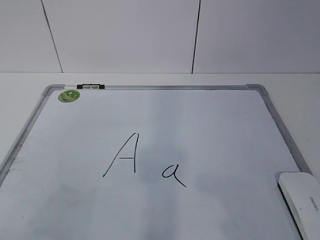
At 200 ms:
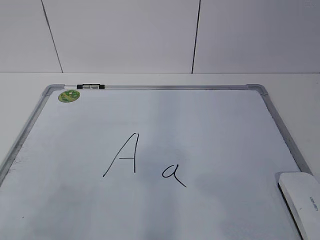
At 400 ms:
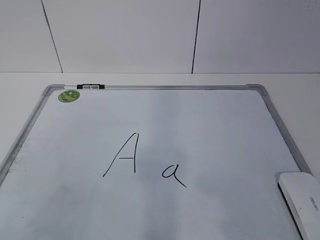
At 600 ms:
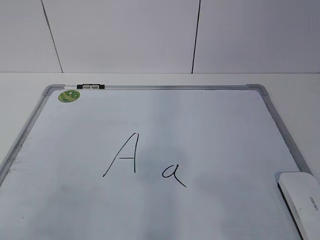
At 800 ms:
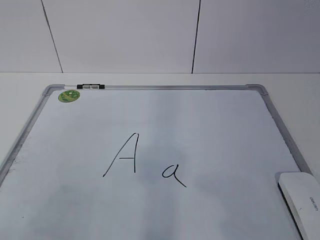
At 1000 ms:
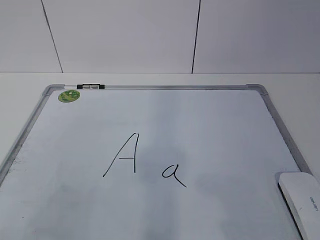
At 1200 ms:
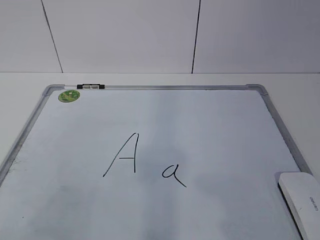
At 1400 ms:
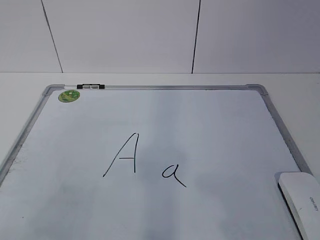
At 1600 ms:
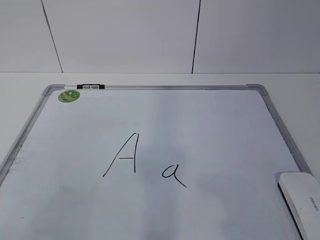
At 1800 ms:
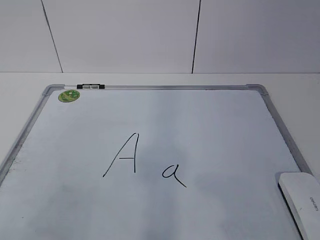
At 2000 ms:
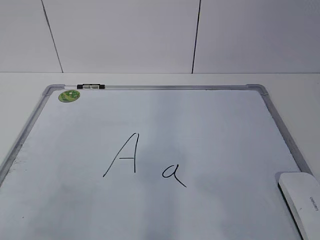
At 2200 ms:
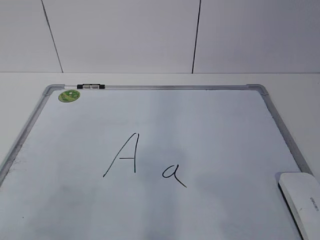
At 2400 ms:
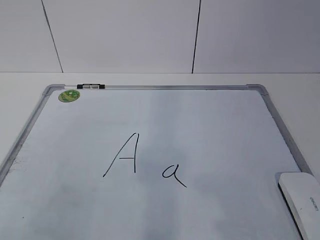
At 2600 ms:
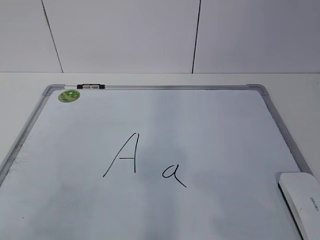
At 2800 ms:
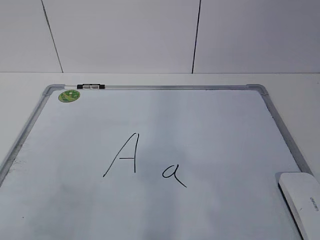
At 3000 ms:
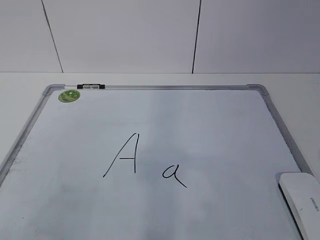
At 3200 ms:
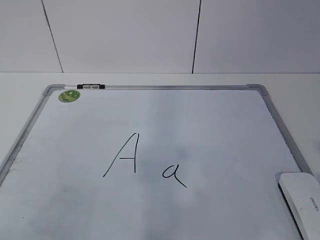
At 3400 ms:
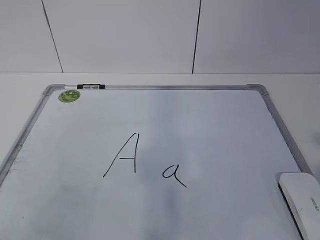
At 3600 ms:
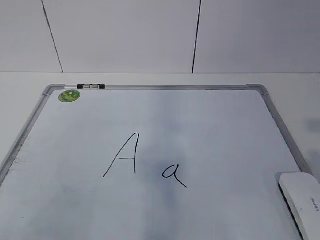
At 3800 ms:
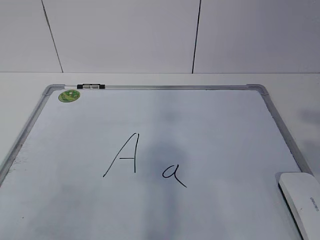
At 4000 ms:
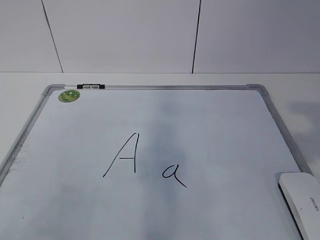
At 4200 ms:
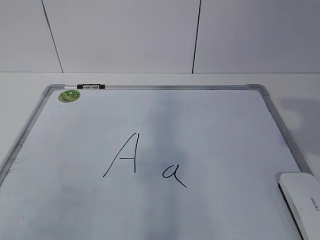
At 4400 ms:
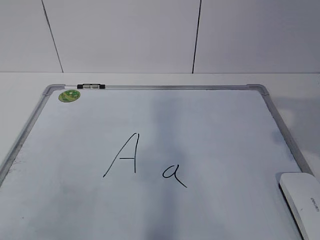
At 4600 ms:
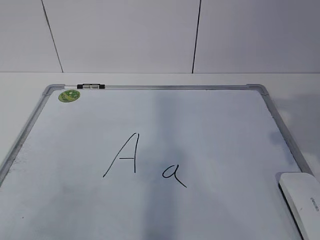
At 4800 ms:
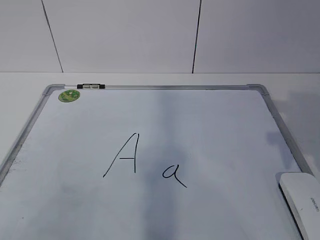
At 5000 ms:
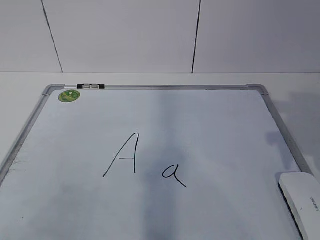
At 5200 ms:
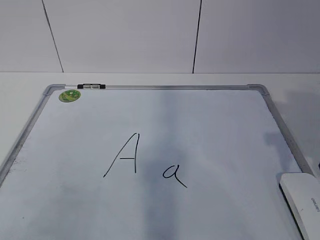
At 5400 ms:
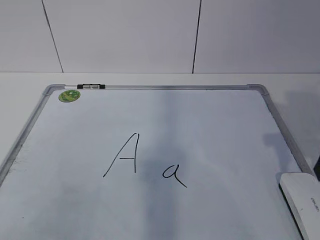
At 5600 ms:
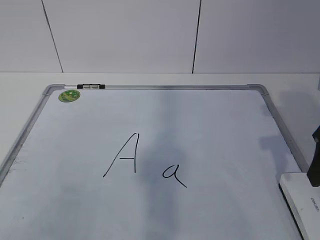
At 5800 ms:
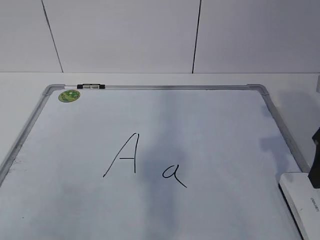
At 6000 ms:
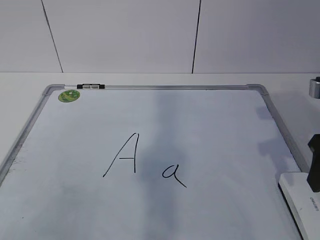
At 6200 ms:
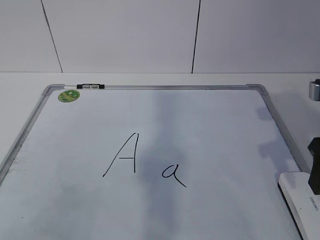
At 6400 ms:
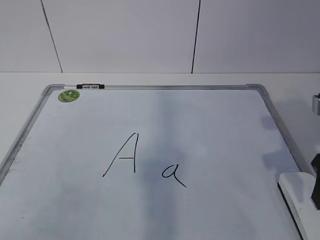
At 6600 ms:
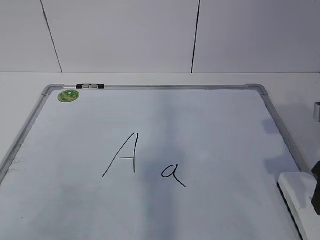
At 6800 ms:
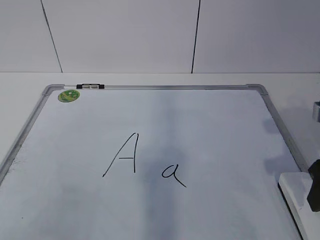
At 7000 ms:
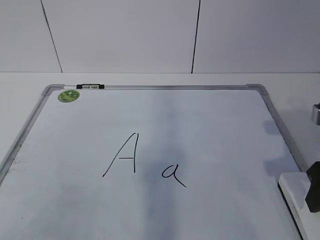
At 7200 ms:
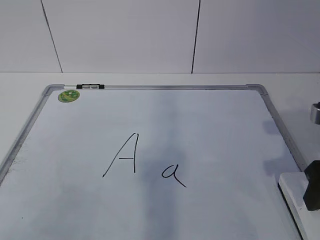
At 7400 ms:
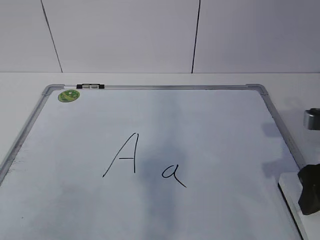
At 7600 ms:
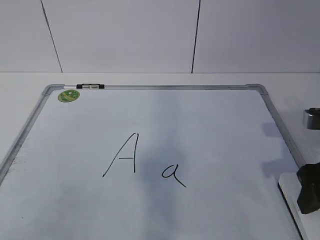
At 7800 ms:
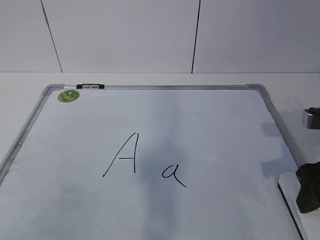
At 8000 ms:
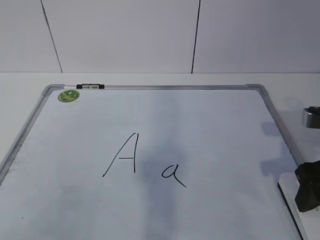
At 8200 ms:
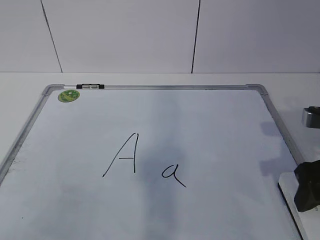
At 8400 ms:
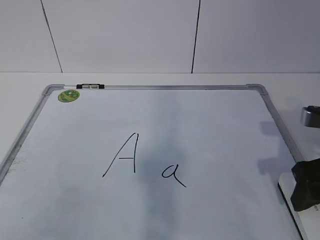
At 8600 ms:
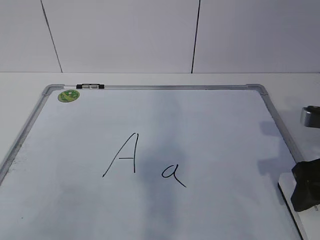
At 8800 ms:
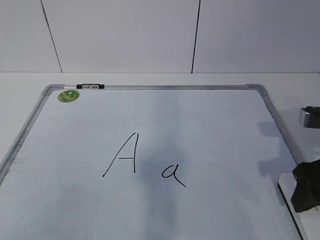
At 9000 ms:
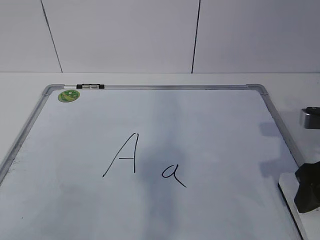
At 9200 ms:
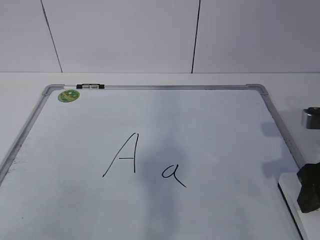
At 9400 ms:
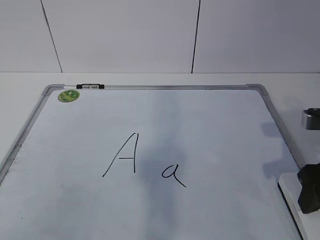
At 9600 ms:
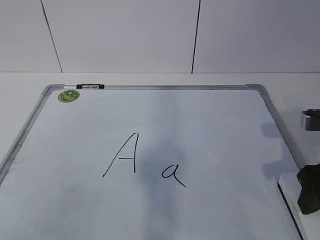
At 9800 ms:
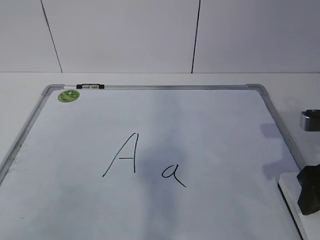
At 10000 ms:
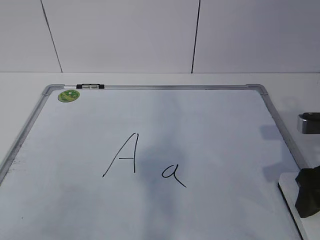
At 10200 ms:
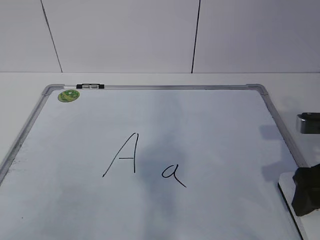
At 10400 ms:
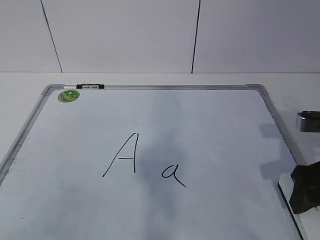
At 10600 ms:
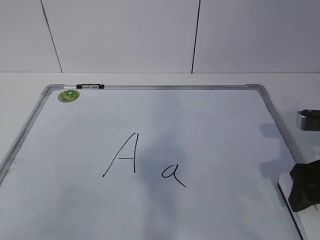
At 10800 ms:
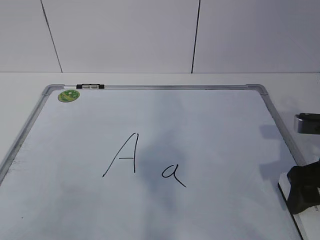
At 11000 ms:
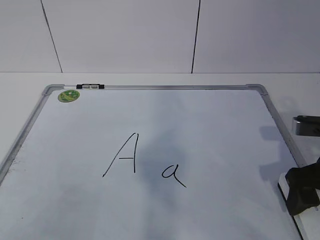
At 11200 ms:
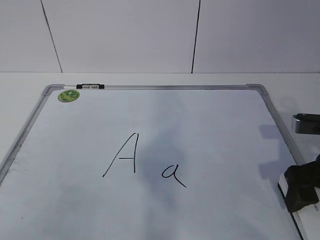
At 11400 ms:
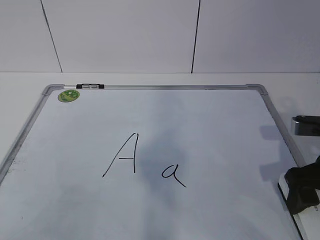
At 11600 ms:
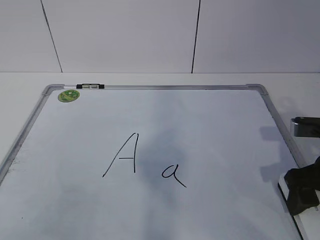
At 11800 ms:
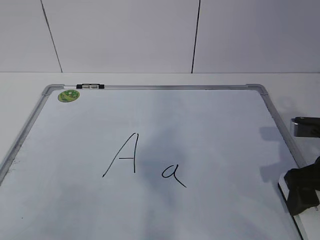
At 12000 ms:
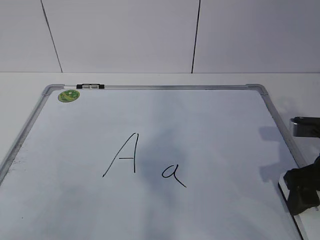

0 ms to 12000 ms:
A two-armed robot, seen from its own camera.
Task of the whole recording: pick up the eraser on the blackboard and erase the letter "a".
Step, 0 ms to 11200 ms: Grab the eraser with your right hand.
4400 ms to 6000 ms: The right gripper shifts roughly 10 cm downward and forward.
6000 ms to 7600 ms: The right gripper moves some 5 cm.
7600 ms to 9000 ms: Neither gripper changes place.
9000 ms to 10400 ms: The right gripper opens its fingers.
10400 ms to 12000 ms: The right gripper closes up.

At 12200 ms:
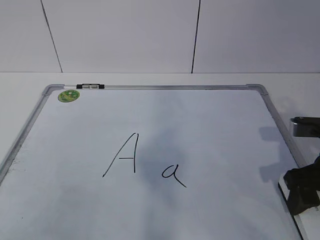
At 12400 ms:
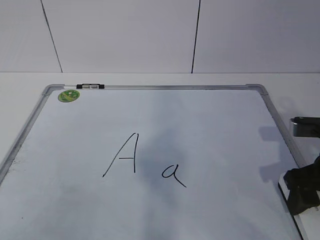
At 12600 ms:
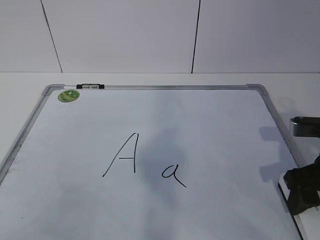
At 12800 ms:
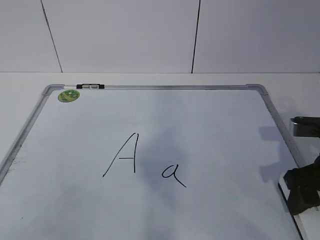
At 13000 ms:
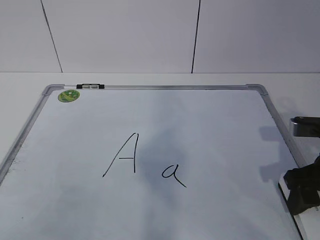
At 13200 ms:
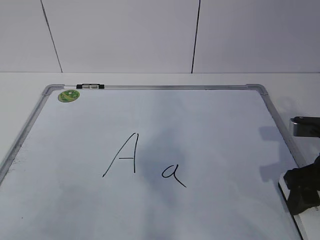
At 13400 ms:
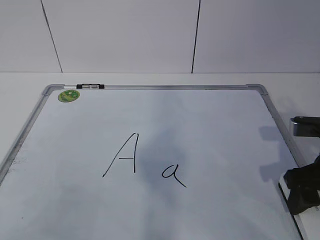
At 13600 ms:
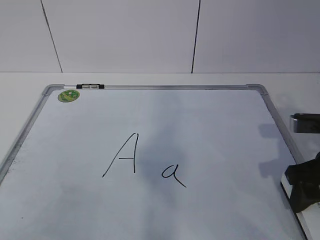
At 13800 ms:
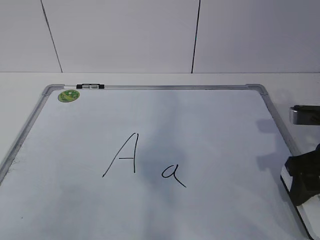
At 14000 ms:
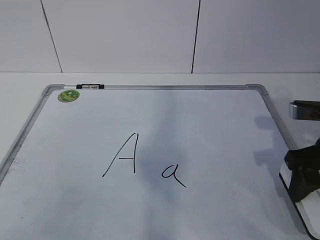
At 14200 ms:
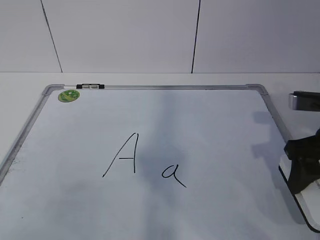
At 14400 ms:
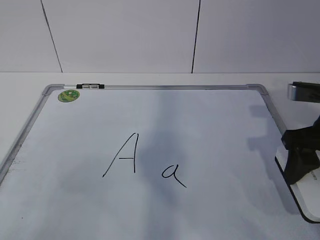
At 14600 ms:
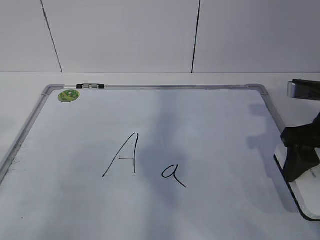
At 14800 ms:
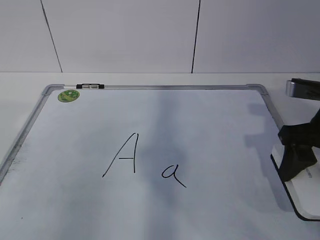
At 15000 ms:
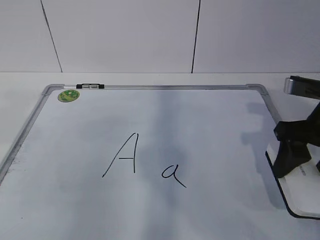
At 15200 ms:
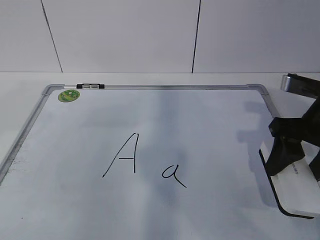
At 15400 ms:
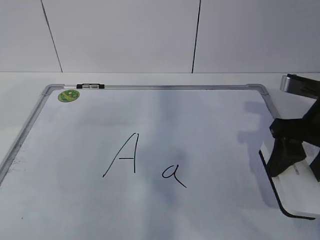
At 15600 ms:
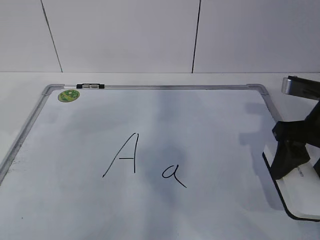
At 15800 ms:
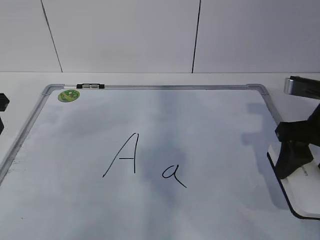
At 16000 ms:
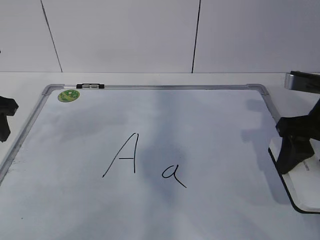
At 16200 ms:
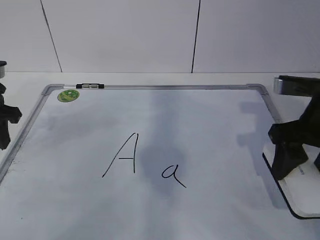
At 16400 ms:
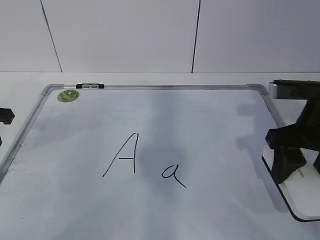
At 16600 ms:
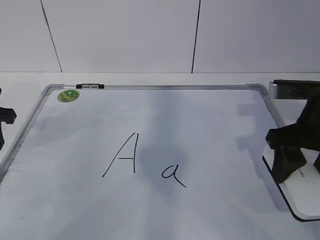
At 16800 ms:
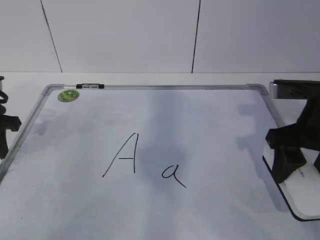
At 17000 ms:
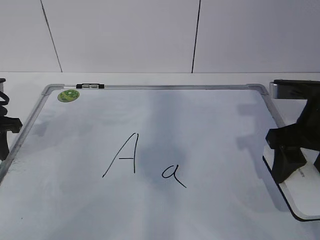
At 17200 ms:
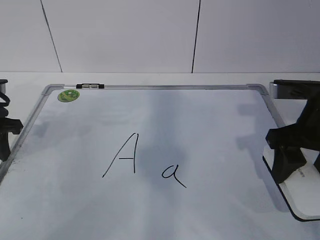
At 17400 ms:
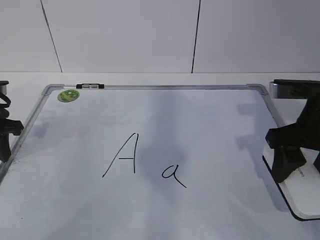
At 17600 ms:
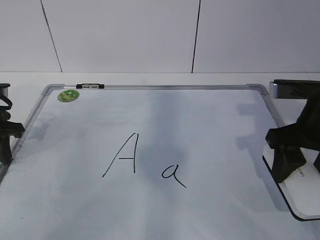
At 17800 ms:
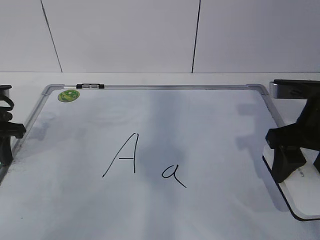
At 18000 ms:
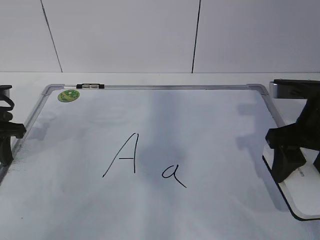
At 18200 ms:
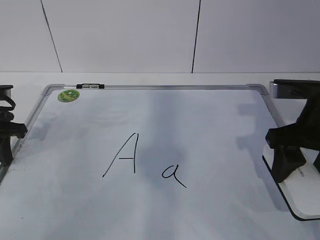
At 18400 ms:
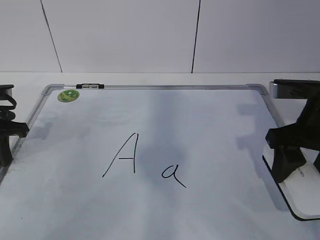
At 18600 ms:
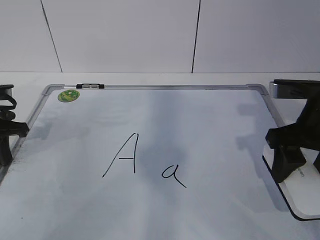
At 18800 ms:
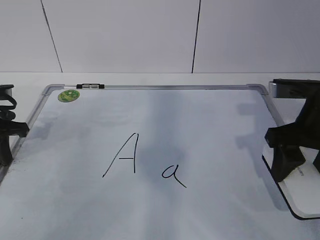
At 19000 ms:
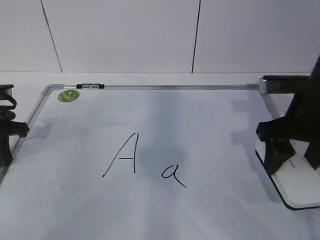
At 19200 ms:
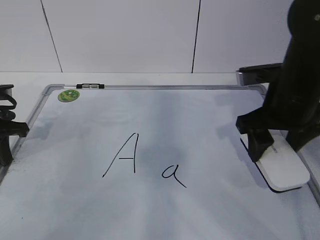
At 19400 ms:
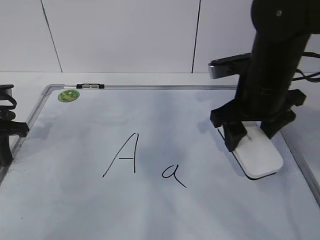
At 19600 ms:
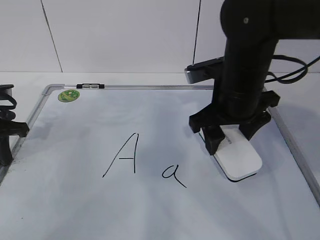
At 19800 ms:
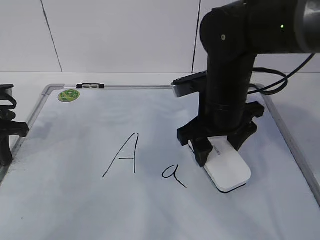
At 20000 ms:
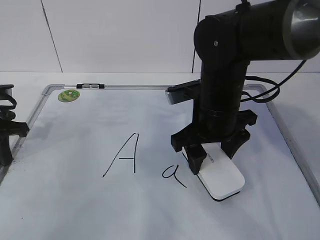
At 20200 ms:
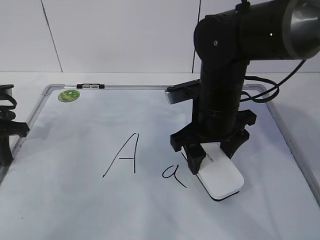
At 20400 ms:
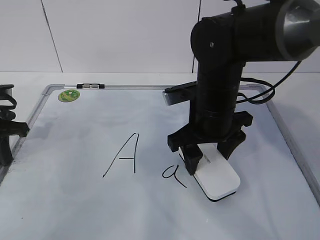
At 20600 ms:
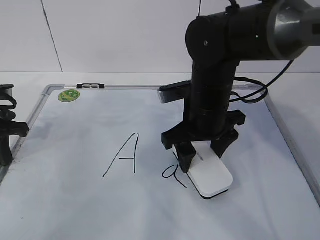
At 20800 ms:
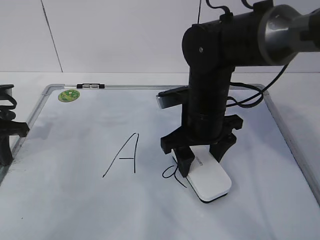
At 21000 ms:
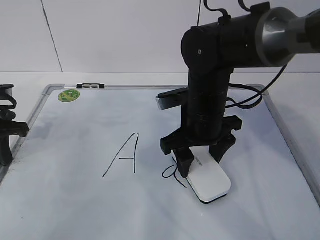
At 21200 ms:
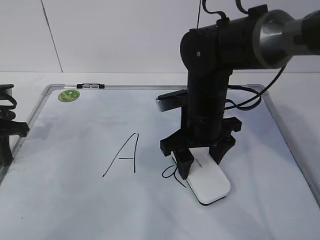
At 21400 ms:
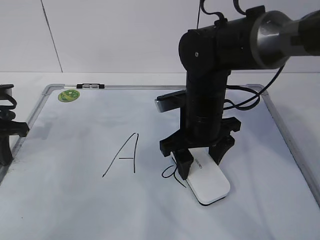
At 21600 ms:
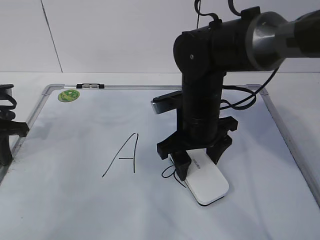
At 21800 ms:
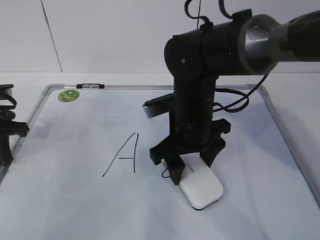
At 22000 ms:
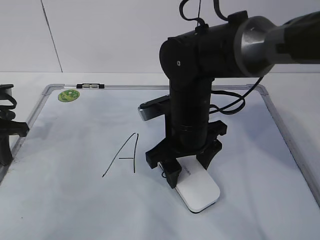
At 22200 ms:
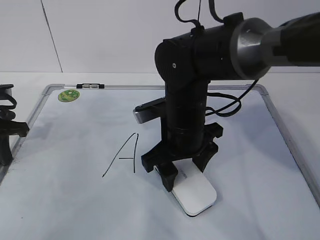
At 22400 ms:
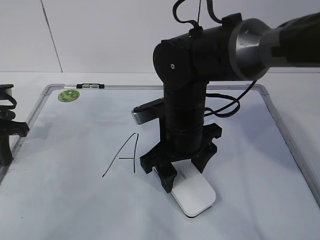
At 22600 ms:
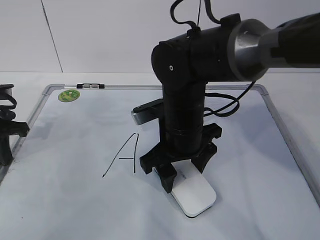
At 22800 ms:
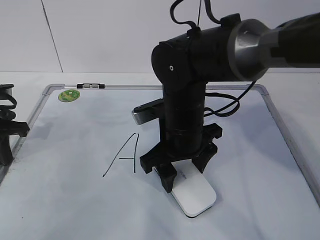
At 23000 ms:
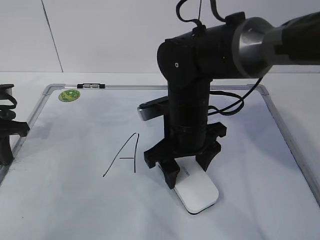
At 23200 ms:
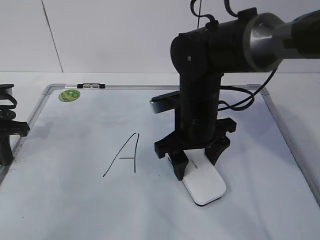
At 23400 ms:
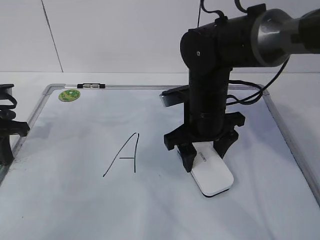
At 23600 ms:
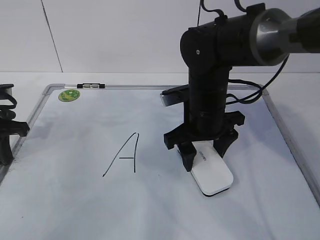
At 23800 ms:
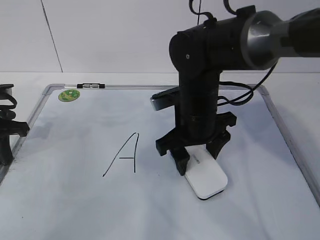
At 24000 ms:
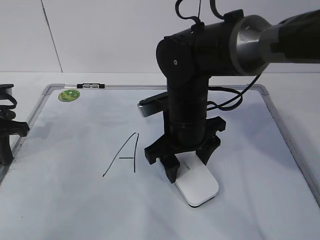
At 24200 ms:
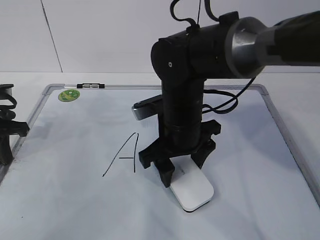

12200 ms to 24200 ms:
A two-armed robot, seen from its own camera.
Task of the whole recording: pick up the eraser on the blackboard and erase the letter "a".
Step, 12200 ms to 14600 ms: Hold the drawing board steady with your left hand.
Step, 14800 ms to 20600 ms: Erase the letter a with your right hand.
12200 ms to 13800 ms: The grippers stay close to where they were, moving slightly.
15200 ms to 16600 ms: The left gripper moves downward and forward, approximately 15 cm.
16600 ms to 18200 ms: The grippers stay close to where they were, moving slightly.
18200 ms to 19800 ms: The right gripper travels to the left and forward by some 15 cm. Meanwhile the left gripper closes.
19800 ms to 21200 ms: The grippers move only a little.
21200 ms to 24200 ms: The grippers make only small movements.
